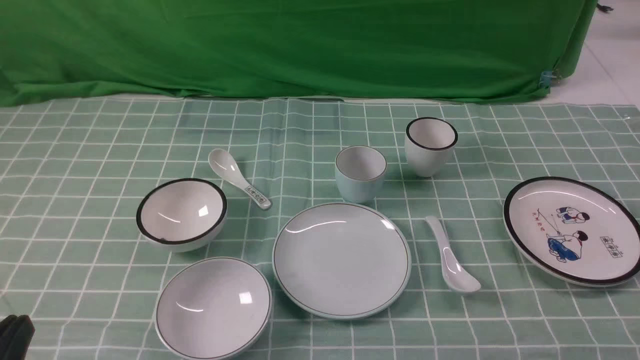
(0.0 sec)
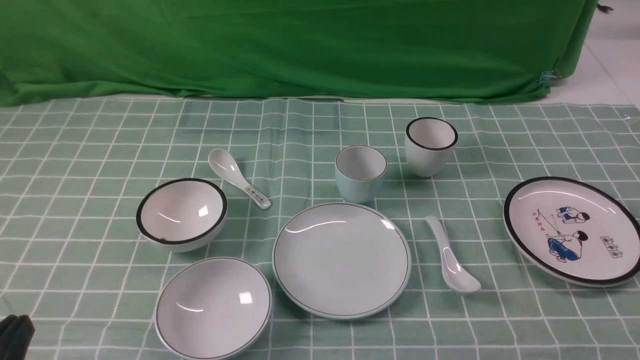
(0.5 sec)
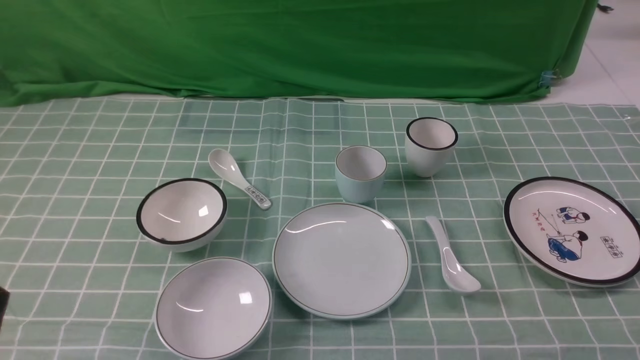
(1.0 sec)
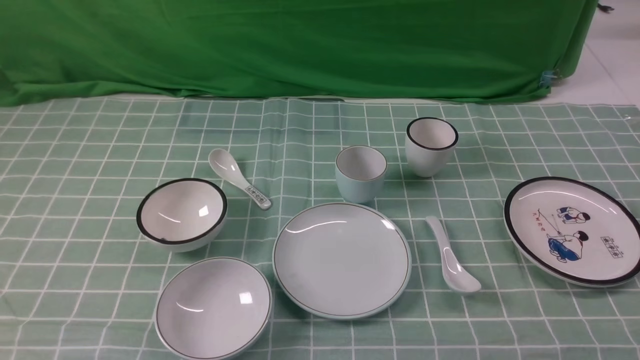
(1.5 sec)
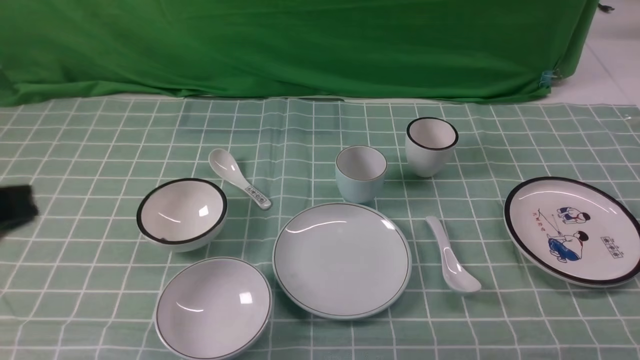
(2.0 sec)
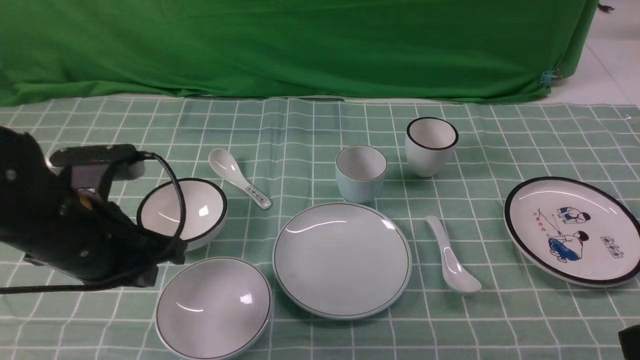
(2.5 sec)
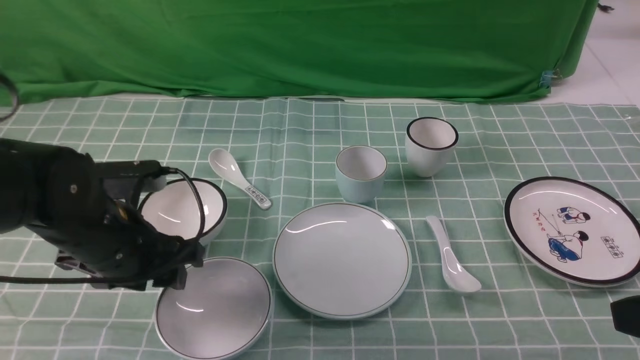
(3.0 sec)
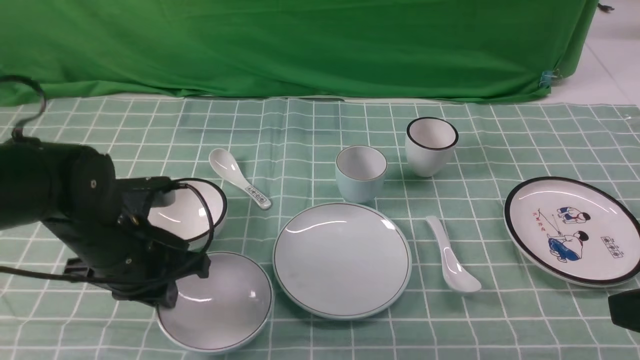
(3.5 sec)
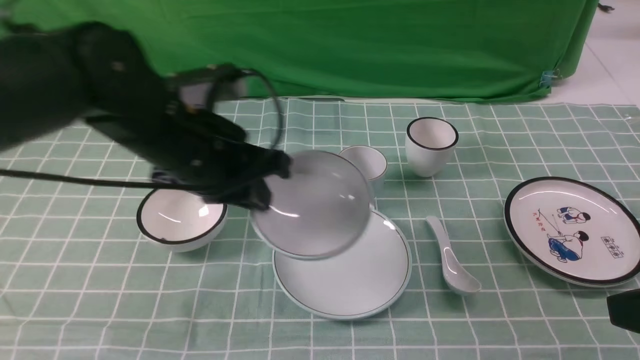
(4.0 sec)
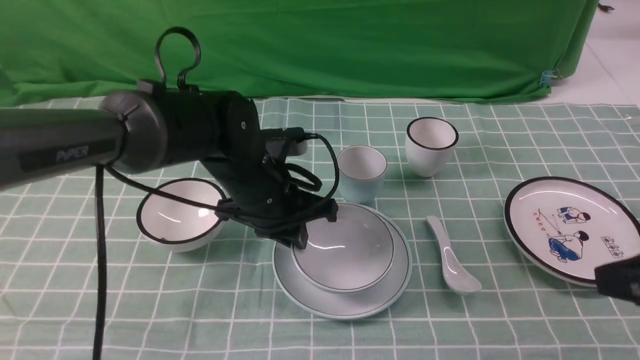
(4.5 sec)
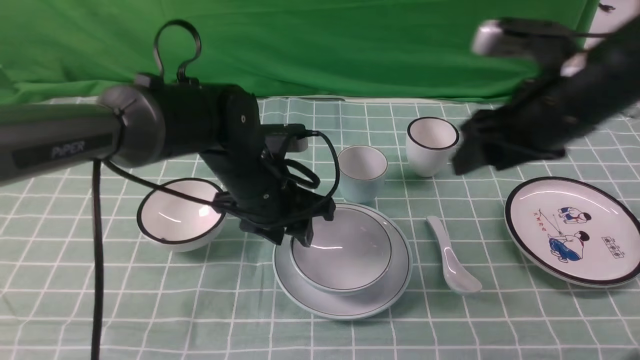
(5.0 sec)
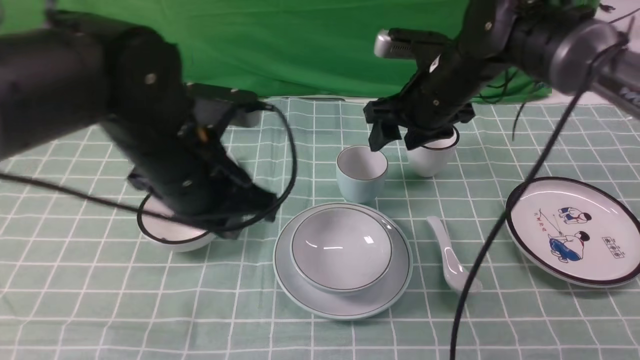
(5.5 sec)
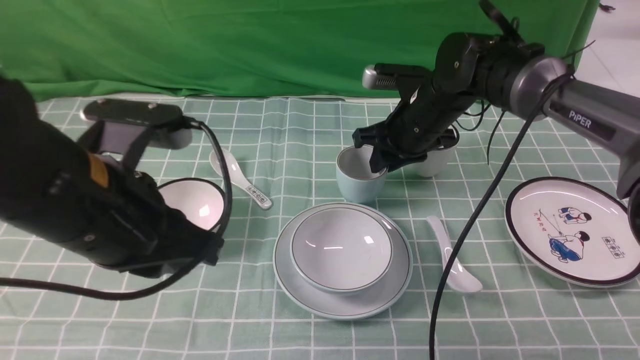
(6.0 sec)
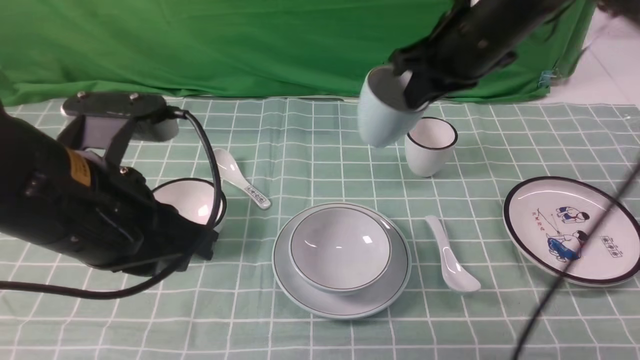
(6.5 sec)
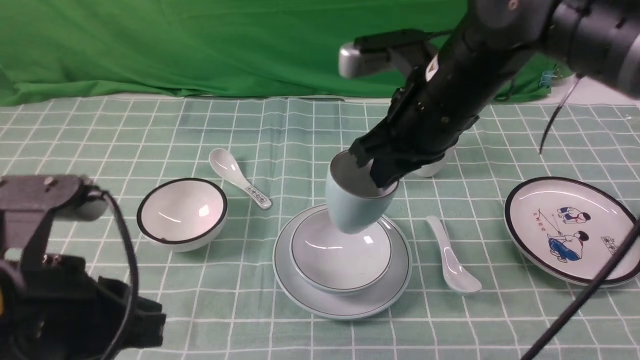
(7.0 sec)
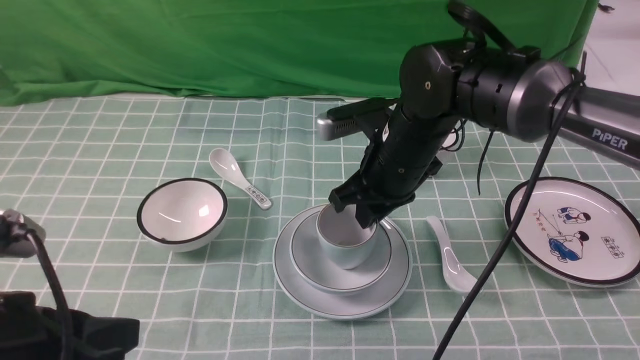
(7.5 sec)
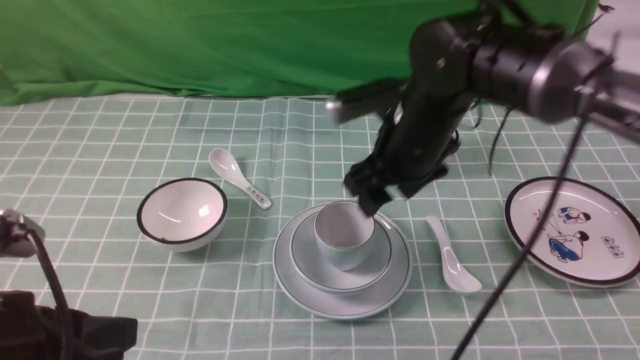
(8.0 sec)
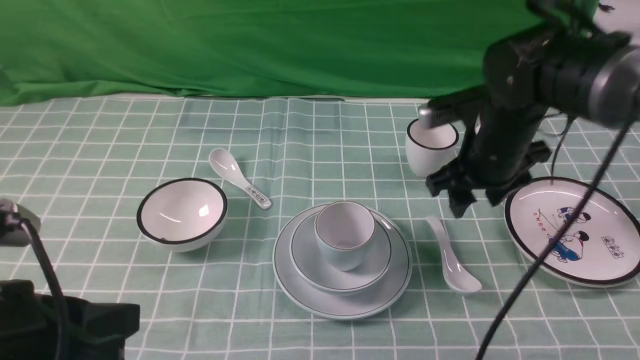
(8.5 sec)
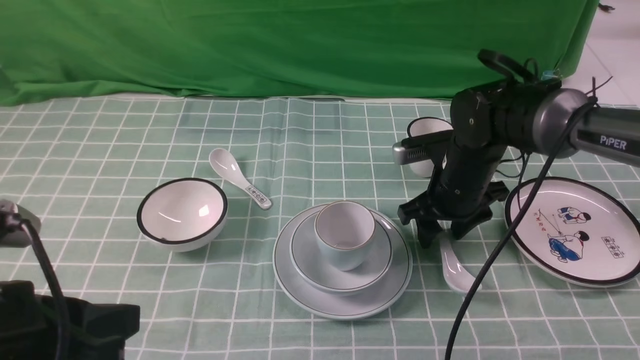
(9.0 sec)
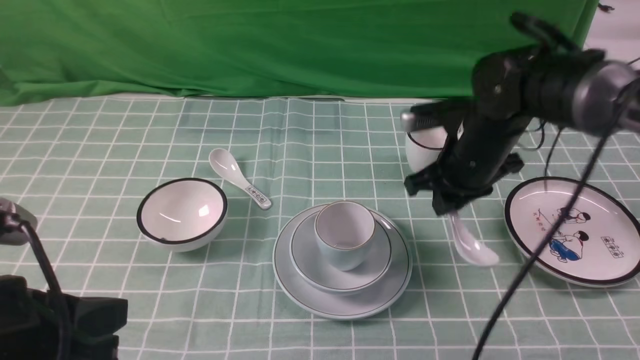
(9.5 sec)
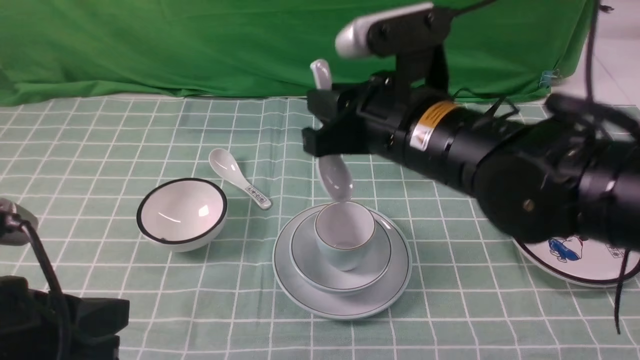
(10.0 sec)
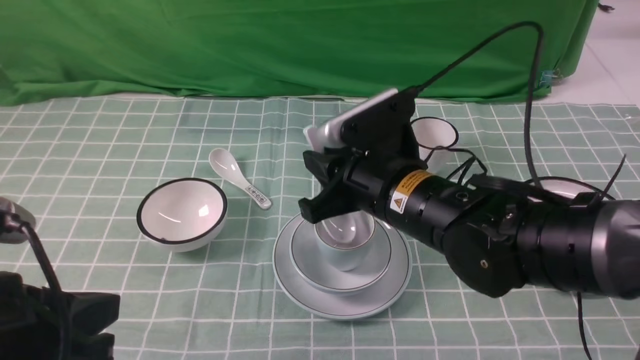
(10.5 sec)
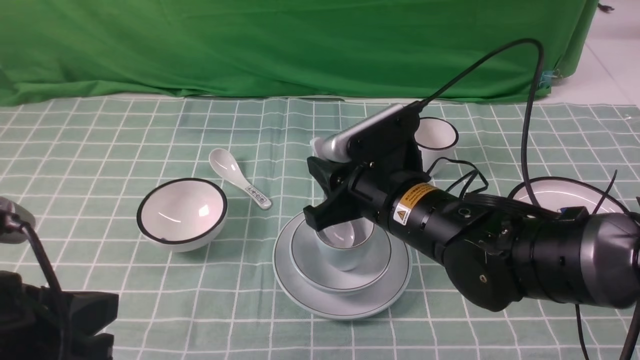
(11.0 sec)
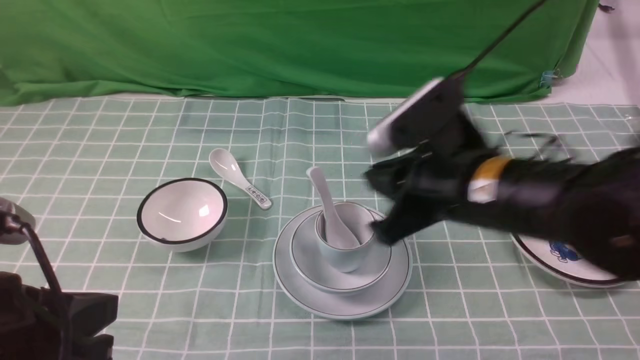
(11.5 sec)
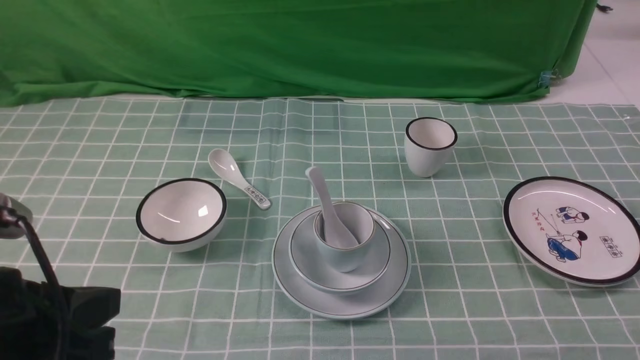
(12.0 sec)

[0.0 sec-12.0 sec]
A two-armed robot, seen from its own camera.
Task of the whole recording: place the bowls on the plates on the blue tablecloth, put the cups on the bowls, and place the spoons in the cups.
Step, 0.0 sec to 3.0 sec: Grasp the bowl with the left gripper.
Step, 4.0 sec to 4.5 sec: Place the bowl on the plate with the left gripper.
Step, 5.0 sec to 6.0 sec: Grasp the cup with the right gripper.
Step, 6.5 sec to 7.5 sec: Place the cup on the bowl with the right gripper.
Step, 8.0 sec to 9.0 sec: Grasp the spoon with the right gripper.
Step, 9.5 sec to 11.0 sec: Place the spoon on the cup with the right gripper.
0.0 sec to 2.0 sec: The left gripper shifts roughly 20 cm upward and forward.
2.0 sec to 4.0 sec: The right gripper travels forward by some 5 cm, while the left gripper goes some 20 cm forward, to the right and downward, and opens, then closes again.
4.0 sec to 6.0 sec: The right gripper goes about 35 cm forward and to the left, and opens and closes again, while the left gripper heads backward and upward, covering some 10 cm, and opens and closes again.
6.0 sec to 8.0 sec: The right gripper goes about 10 cm backward and upward, and opens; the left gripper is displaced backward by some 10 cm.
8.0 sec to 10.0 sec: The right gripper travels backward by some 10 cm, goes downward and returns, roughly 10 cm each way, and closes its fingers.
10.0 sec to 12.0 sec: The right gripper travels to the right and backward by some 35 cm.

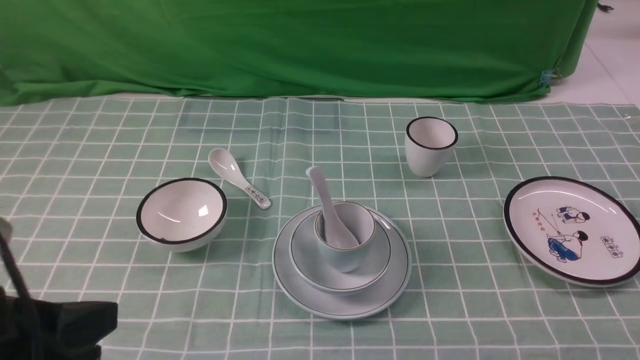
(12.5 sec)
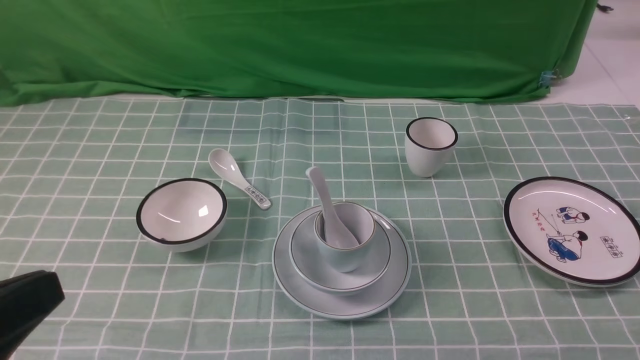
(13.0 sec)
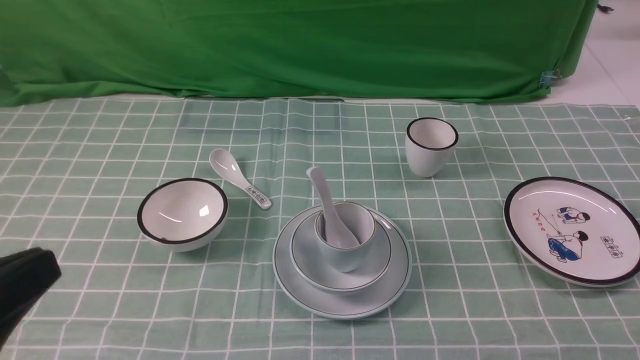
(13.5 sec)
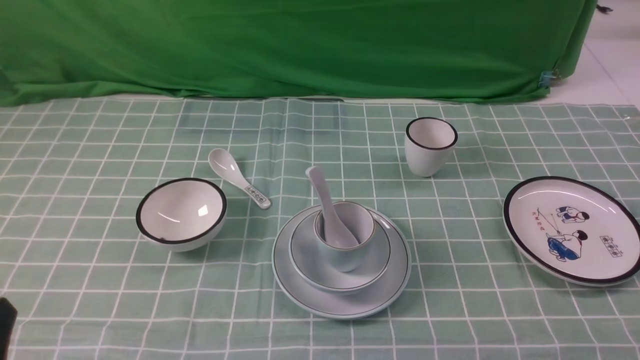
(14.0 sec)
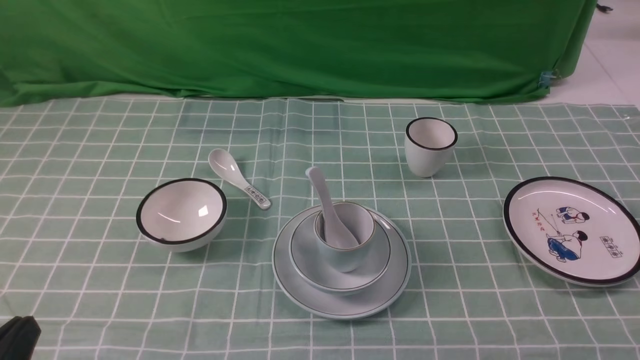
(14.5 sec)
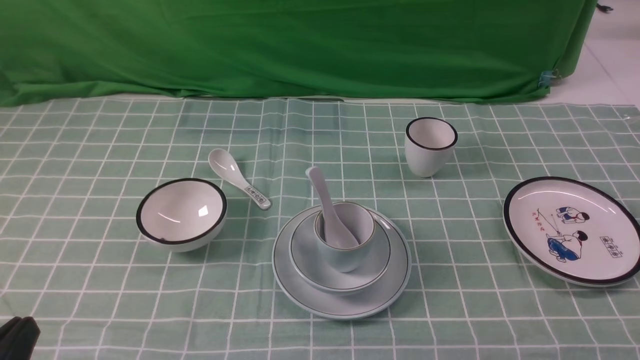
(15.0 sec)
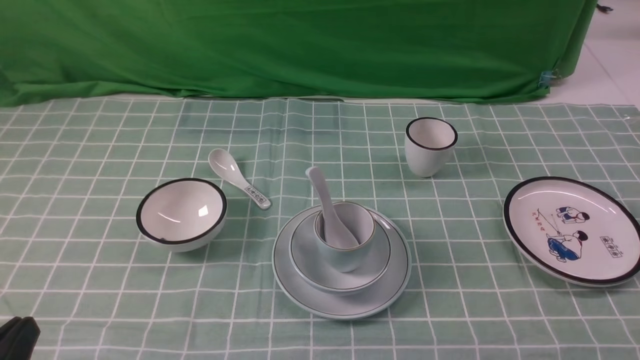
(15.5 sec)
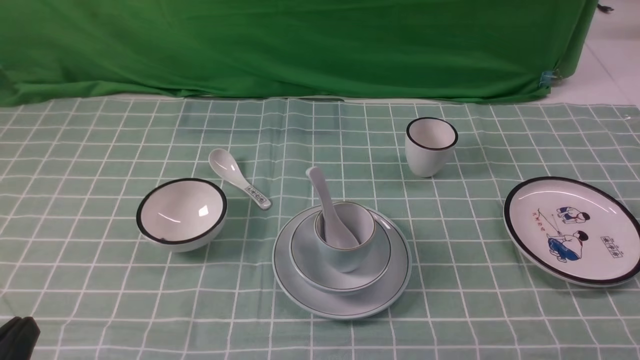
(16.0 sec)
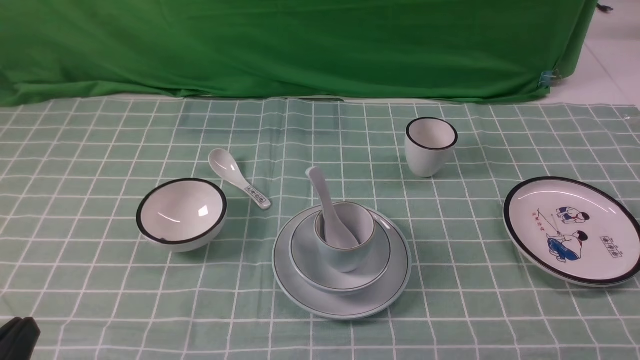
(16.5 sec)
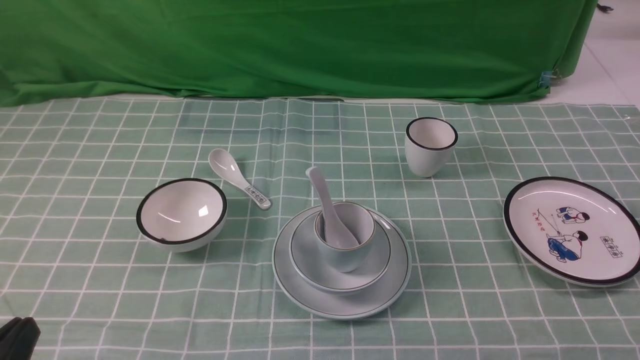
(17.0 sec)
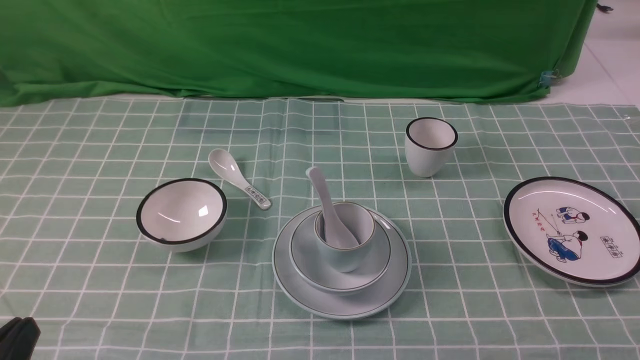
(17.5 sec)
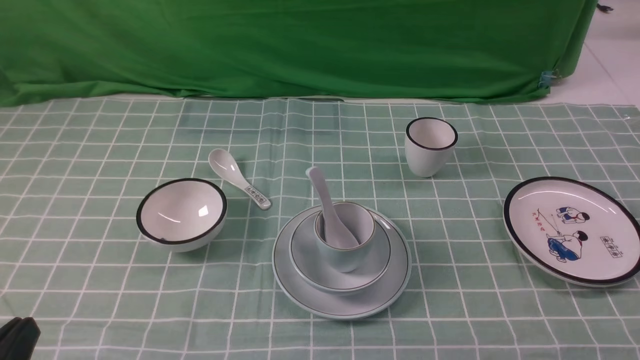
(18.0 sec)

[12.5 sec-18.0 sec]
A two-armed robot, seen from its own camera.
Task of the whole recording: place the bowls on the plates on the blue tablecloth, put the cups on the bowls, and place the spoons in the cups.
12.5 sec to 14.5 sec: The left gripper travels downward by approximately 10 cm.
16.0 sec to 18.0 sec: The two grippers keep their place.
